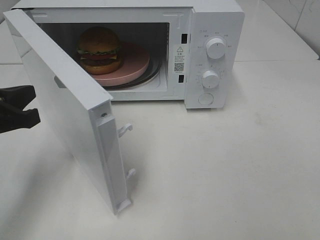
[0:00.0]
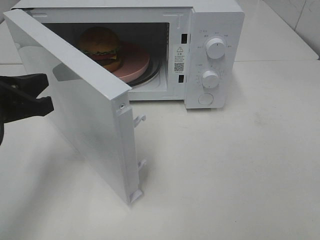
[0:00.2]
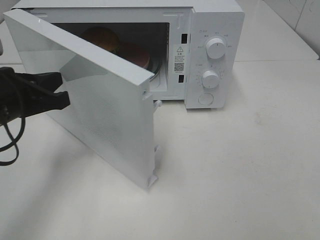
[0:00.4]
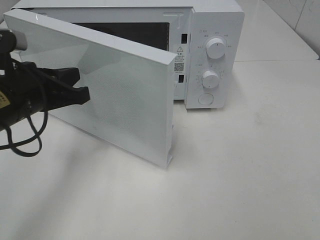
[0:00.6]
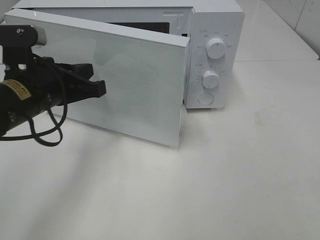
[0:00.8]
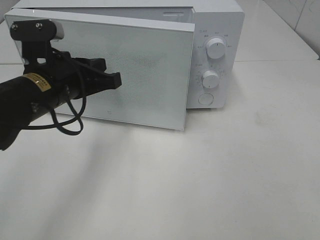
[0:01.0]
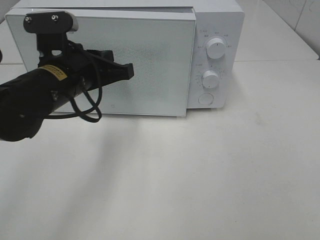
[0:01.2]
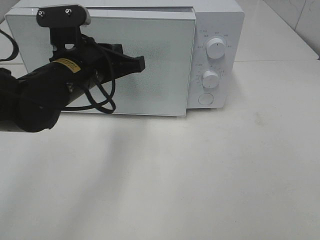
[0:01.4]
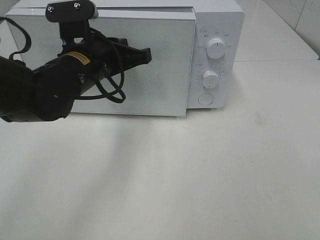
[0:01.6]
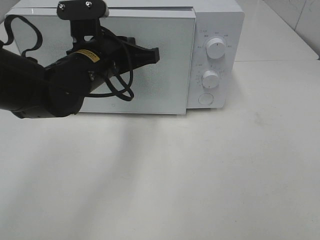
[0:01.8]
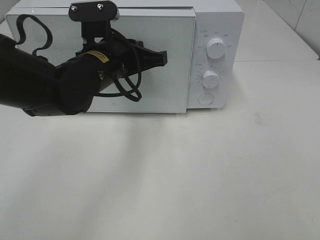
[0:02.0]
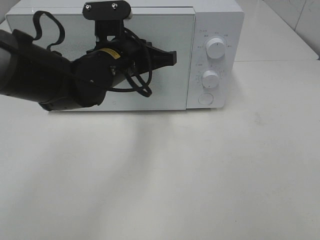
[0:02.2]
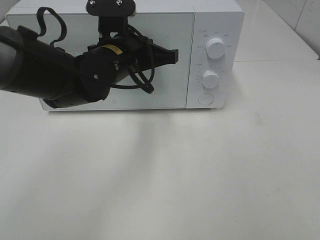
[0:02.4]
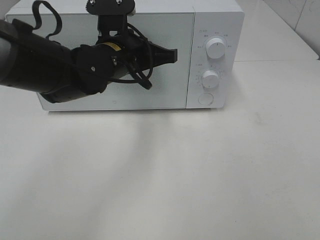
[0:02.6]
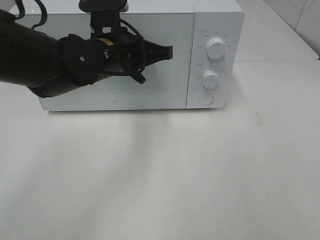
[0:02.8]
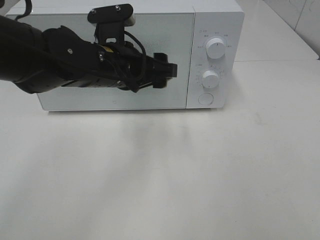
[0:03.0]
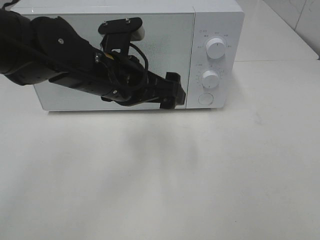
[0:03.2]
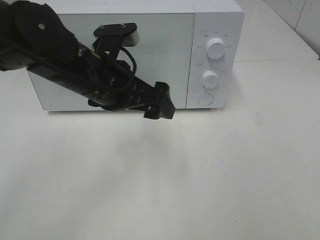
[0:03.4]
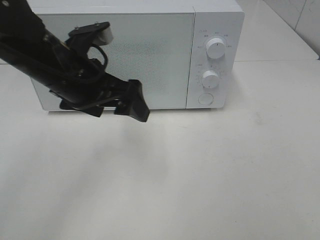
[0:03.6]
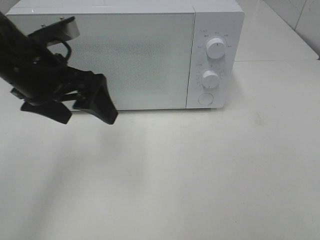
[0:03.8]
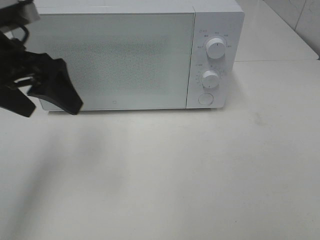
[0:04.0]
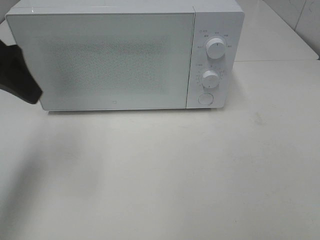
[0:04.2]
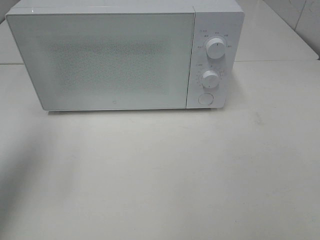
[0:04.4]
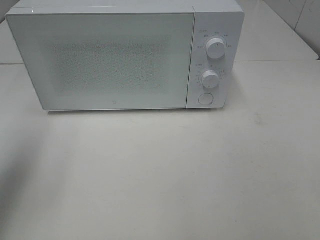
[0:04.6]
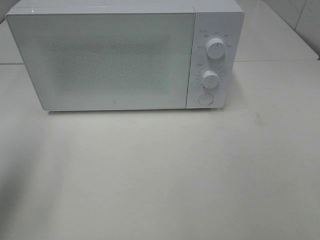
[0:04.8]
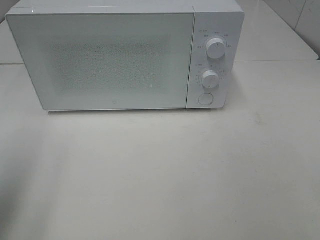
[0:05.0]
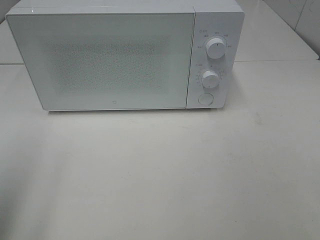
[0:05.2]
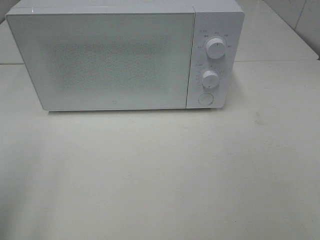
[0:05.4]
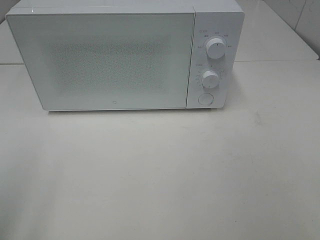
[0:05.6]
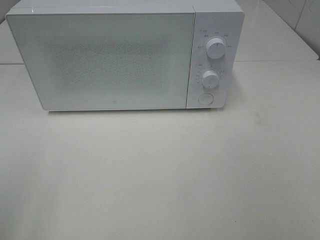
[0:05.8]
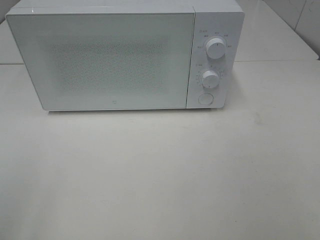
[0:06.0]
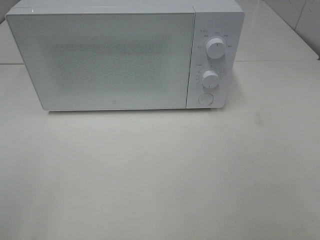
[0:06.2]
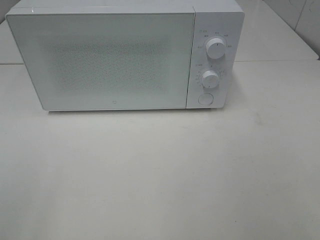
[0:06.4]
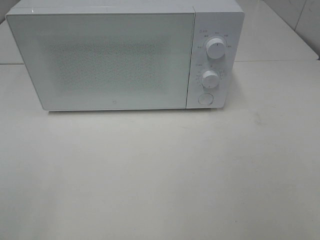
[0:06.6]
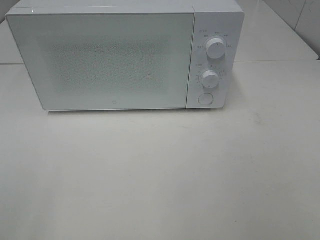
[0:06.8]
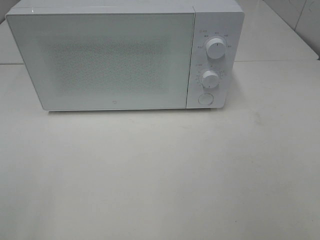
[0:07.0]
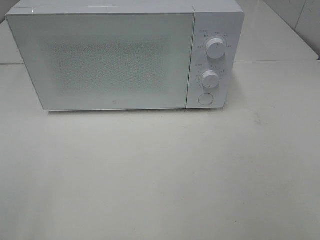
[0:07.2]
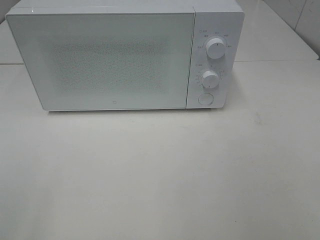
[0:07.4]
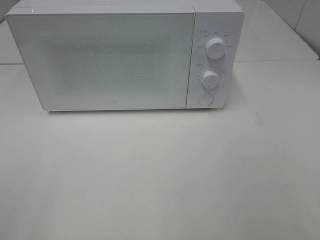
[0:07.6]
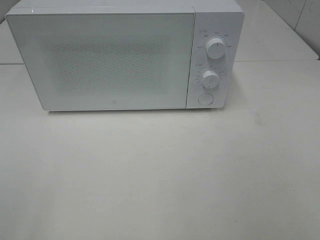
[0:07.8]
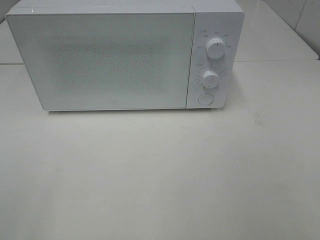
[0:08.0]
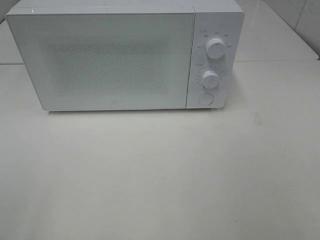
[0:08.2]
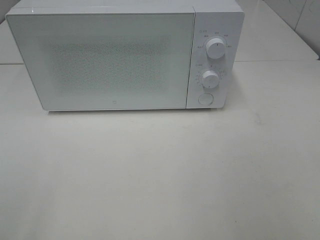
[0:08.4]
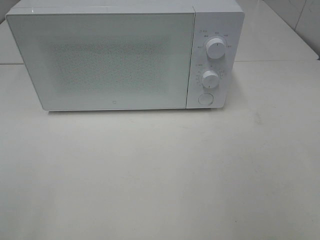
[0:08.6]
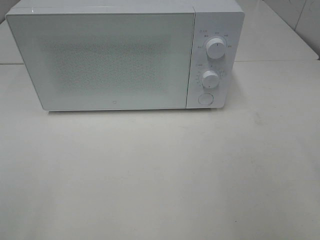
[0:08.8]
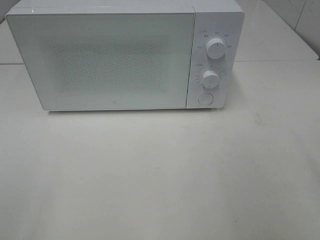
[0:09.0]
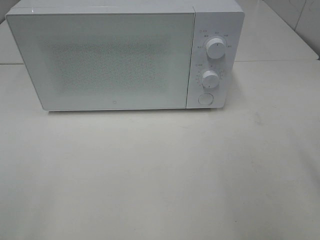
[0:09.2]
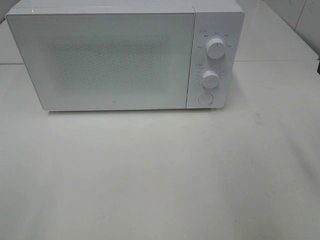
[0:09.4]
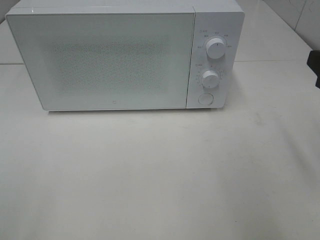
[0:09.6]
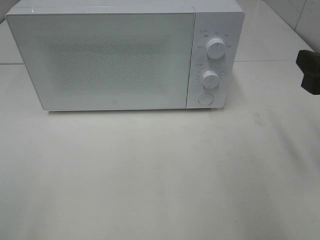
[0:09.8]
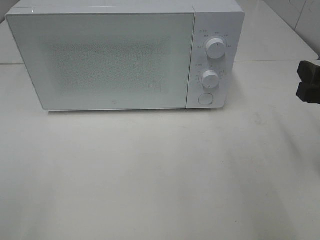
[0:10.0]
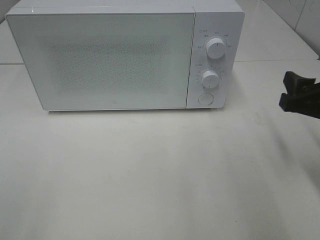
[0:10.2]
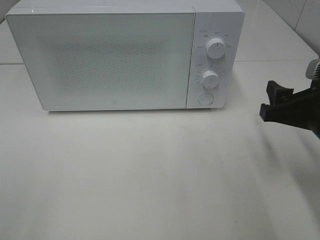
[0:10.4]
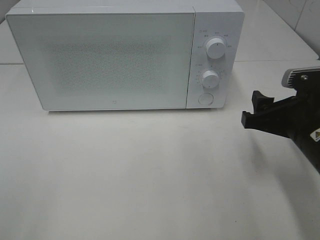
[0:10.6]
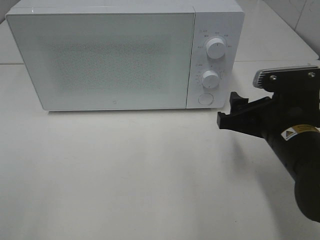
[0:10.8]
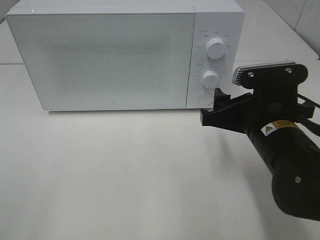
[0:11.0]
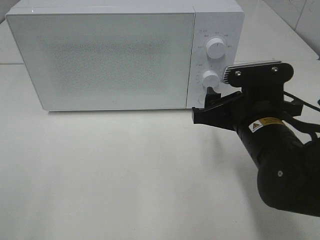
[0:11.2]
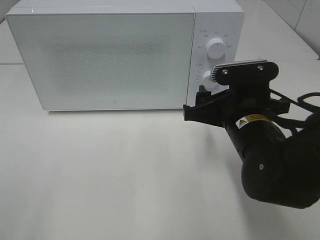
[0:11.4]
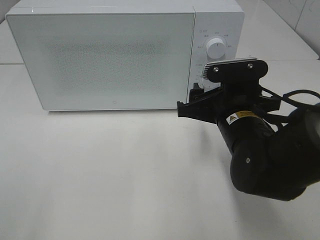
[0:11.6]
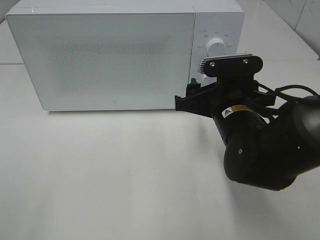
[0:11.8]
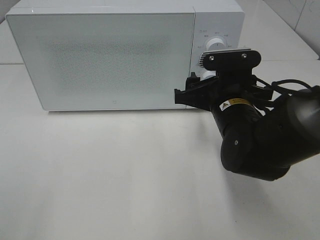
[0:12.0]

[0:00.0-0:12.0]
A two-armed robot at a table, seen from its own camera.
Task of the whole recording: Heat the burger.
Step, 0:00.0 to 0:02.8: Left hand: close the microwave door.
0:00.0 to 0:01.6: The left gripper goes about 20 cm to the right and forward.
0:01.6 to 0:03.0: The left gripper opens its fingers.
0:03.0 to 0:04.4: The left gripper goes about 25 cm to the left and upward.
0:04.4 to 0:06.0: The left gripper is displaced backward by roughly 20 cm.
0:09.0 to 0:10.4: The right gripper heads downward and forward, covering about 15 cm.
0:10.4 to 0:12.0: The right gripper is displaced to the left and forward by roughly 15 cm.

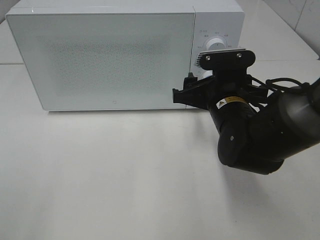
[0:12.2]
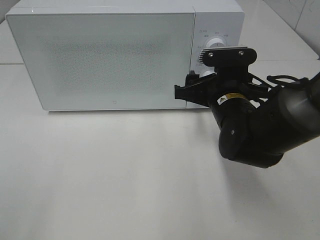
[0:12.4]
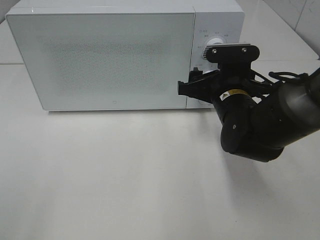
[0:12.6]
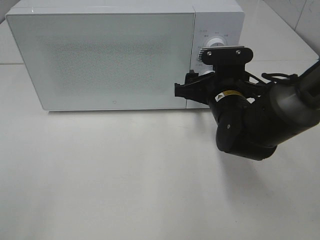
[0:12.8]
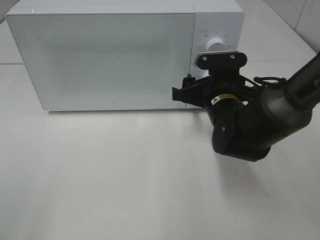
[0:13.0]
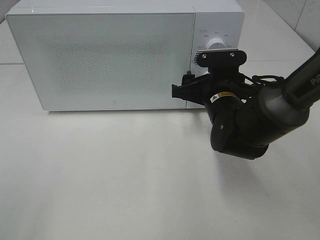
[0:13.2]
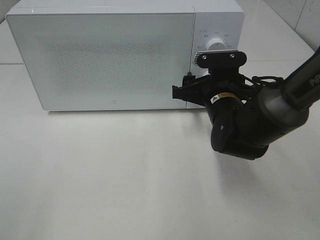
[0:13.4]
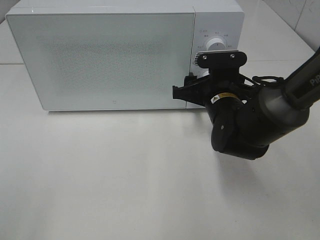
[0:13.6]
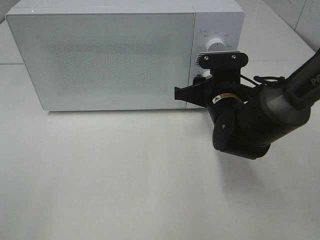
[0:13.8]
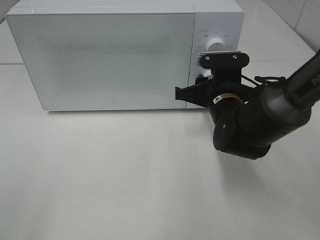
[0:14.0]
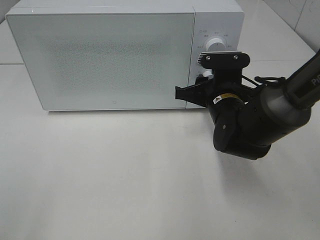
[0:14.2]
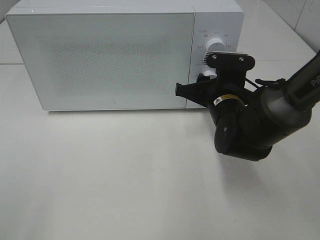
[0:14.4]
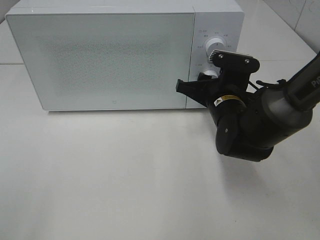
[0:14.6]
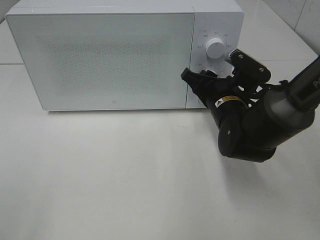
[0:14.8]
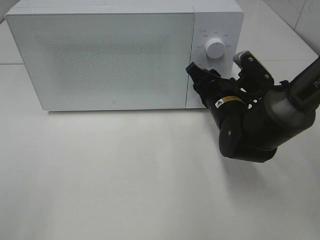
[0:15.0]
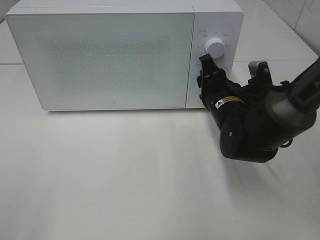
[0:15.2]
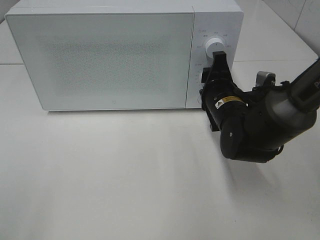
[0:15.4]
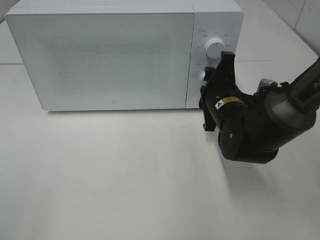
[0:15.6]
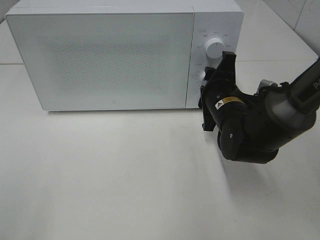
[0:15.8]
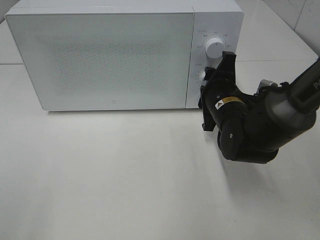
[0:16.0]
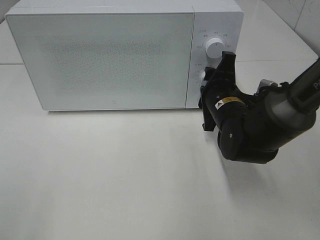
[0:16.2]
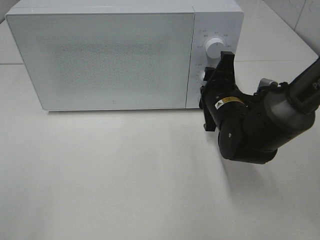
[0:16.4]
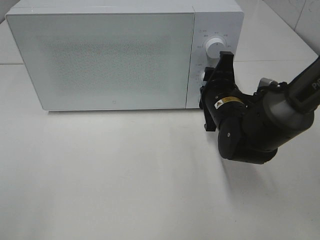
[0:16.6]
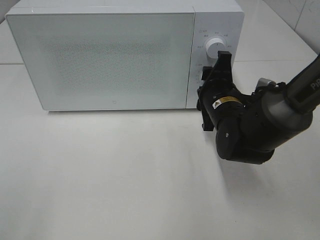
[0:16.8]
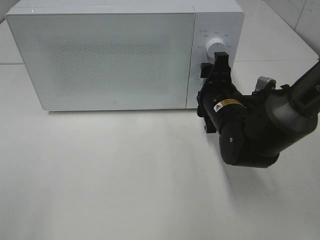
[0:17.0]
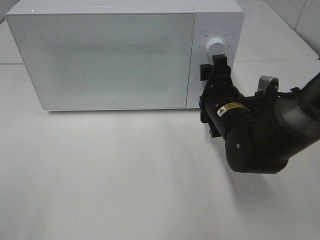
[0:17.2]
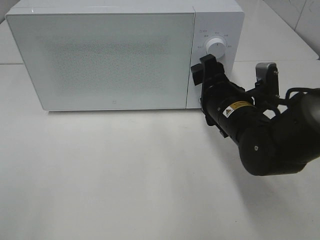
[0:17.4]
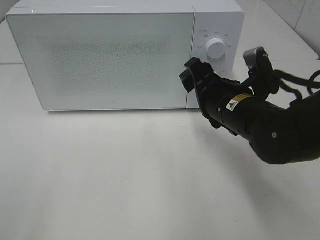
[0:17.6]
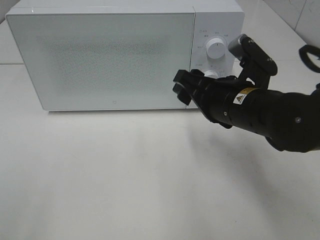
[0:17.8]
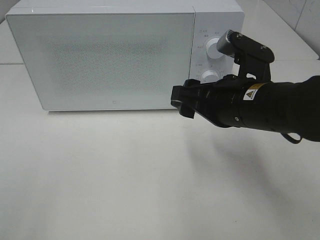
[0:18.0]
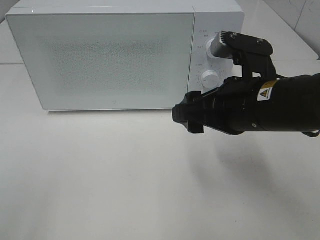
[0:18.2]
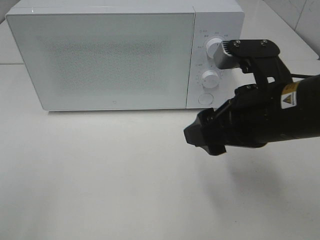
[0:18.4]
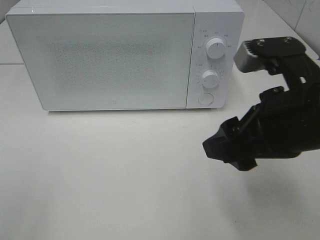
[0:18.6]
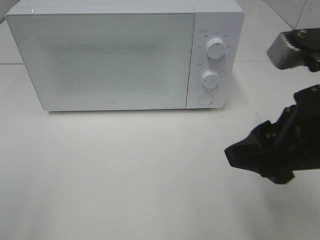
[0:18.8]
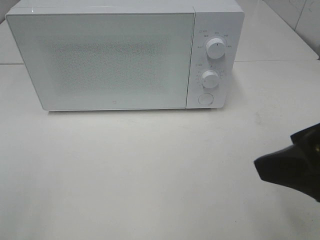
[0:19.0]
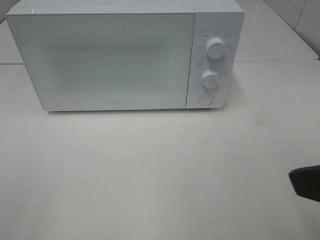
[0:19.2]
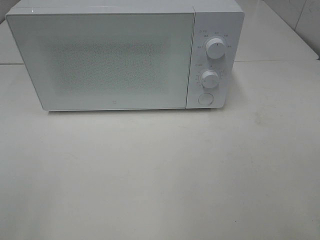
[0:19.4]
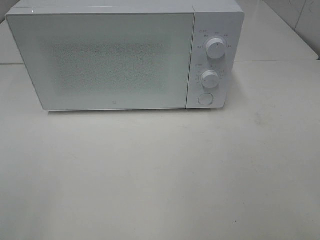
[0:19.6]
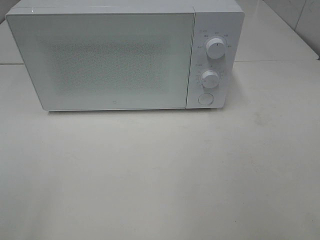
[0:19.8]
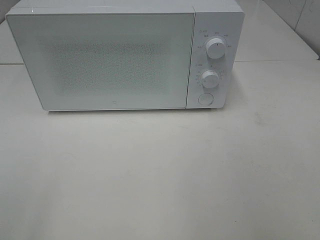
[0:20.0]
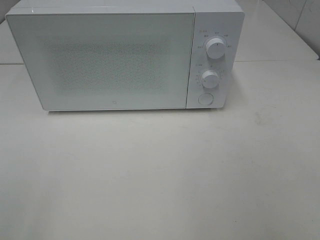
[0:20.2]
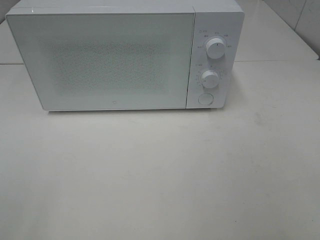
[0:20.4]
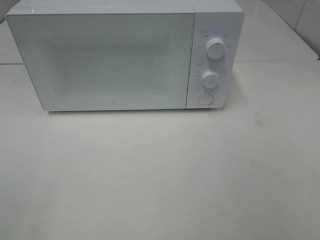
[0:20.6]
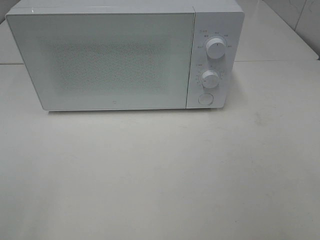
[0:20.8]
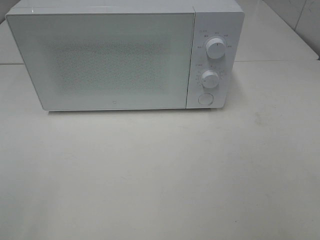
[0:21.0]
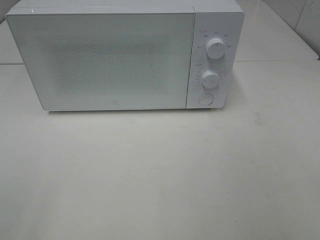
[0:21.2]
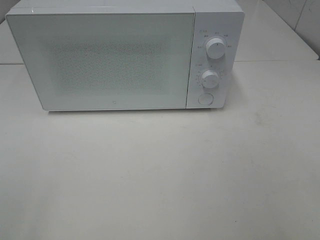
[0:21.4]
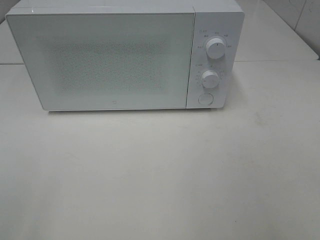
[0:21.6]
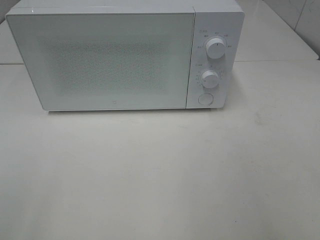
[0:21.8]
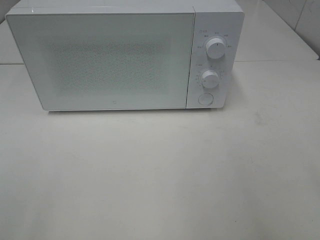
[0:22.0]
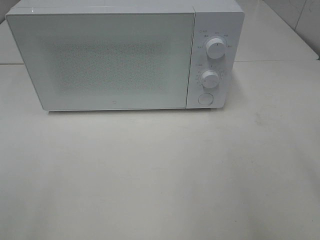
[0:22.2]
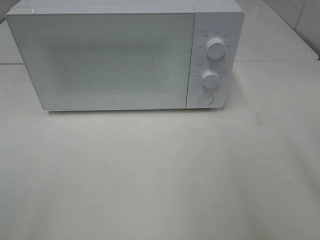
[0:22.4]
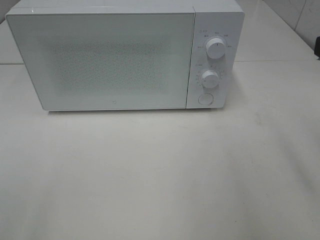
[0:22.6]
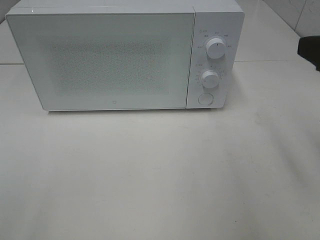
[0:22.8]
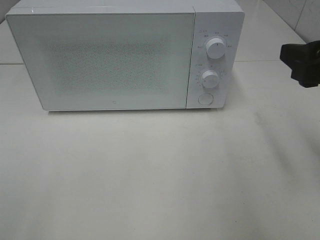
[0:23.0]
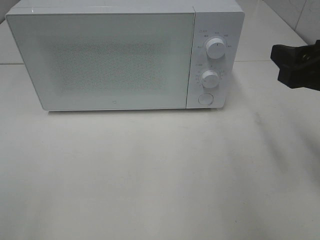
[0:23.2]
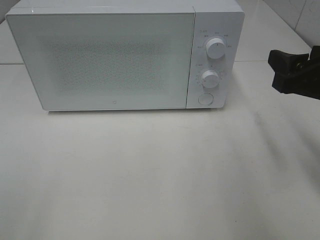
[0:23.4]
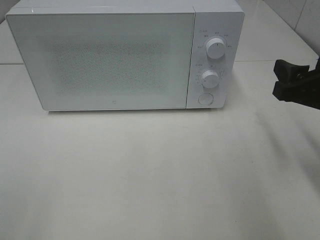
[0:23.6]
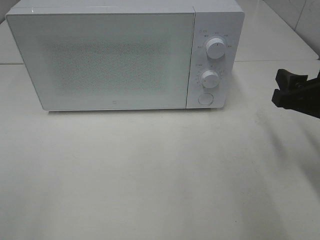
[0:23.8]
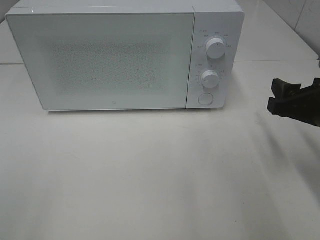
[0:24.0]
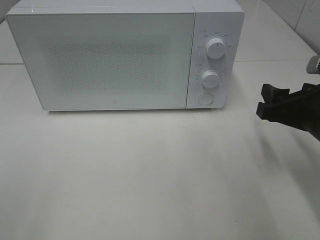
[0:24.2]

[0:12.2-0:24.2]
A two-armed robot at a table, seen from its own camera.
Task of the whole recording: Heat the burger.
Step, 0:12.2 to 0:16.8: Right hand: twist timer button.
0:12.2 to 0:13.8: The grippers make only small movements.
0:16.6 to 0:18.2: The right gripper travels backward and upward by roughly 15 cm.
0:18.2 to 0:19.8: The right gripper heads backward, to the right and upward, covering about 25 cm.
0:22.6 to 0:24.2: The right gripper shifts approximately 15 cm downward and forward.
